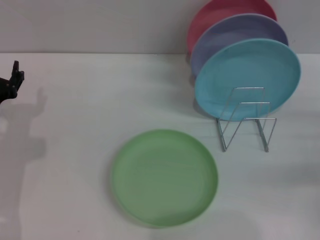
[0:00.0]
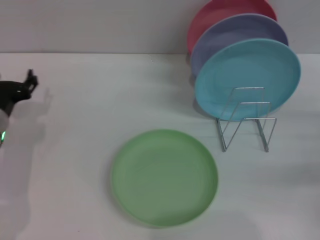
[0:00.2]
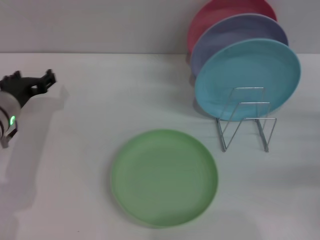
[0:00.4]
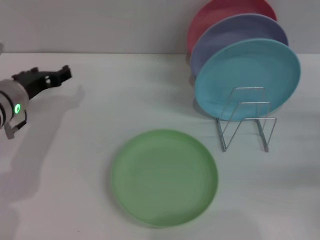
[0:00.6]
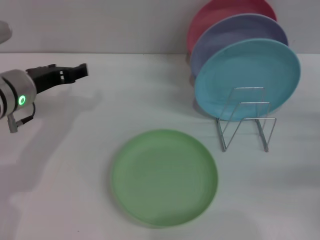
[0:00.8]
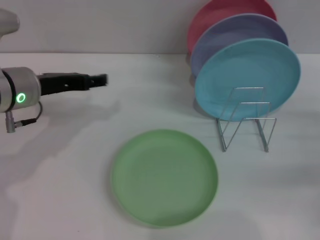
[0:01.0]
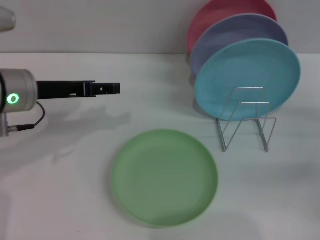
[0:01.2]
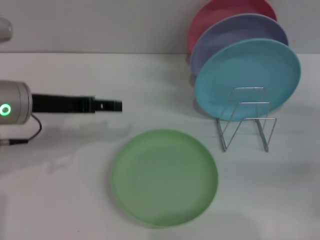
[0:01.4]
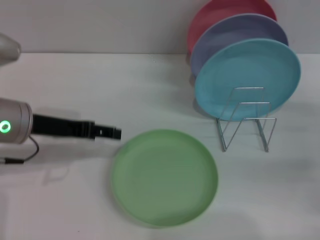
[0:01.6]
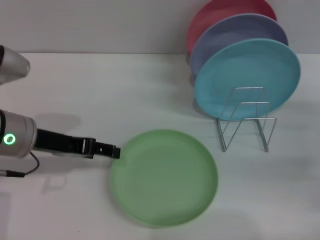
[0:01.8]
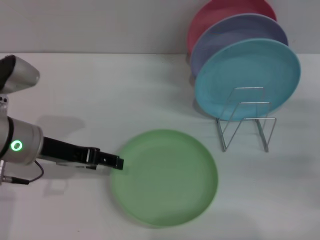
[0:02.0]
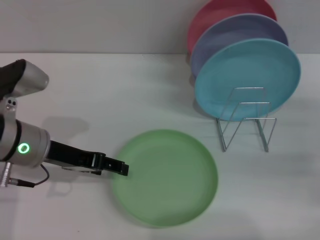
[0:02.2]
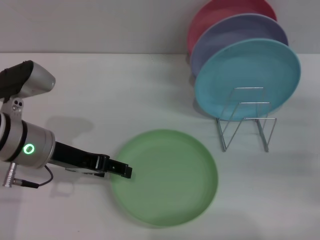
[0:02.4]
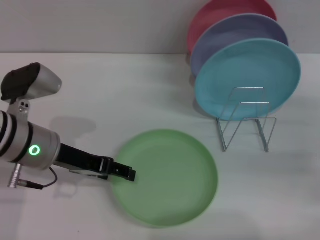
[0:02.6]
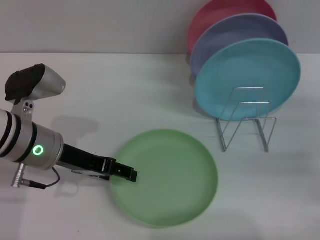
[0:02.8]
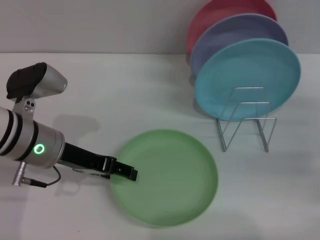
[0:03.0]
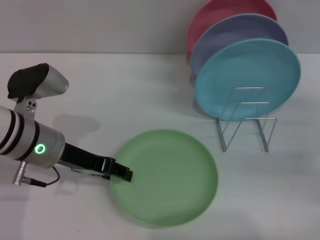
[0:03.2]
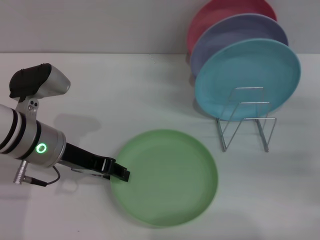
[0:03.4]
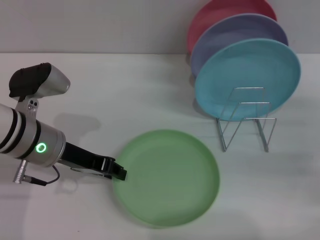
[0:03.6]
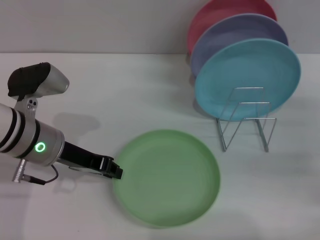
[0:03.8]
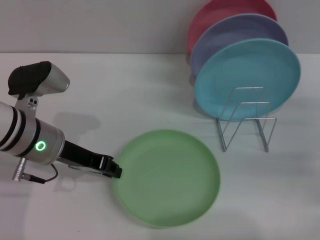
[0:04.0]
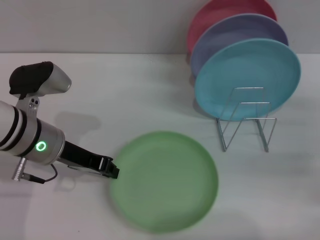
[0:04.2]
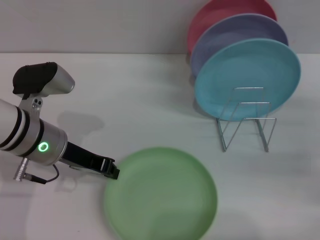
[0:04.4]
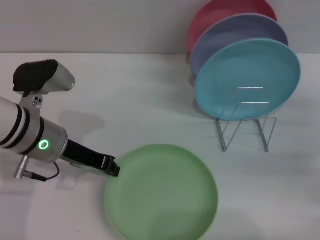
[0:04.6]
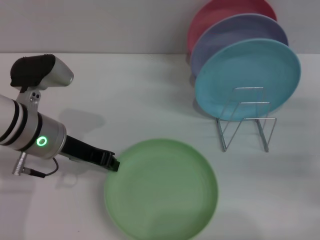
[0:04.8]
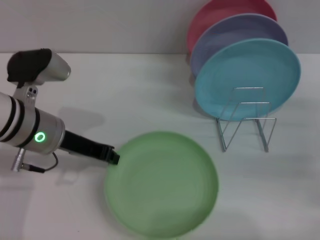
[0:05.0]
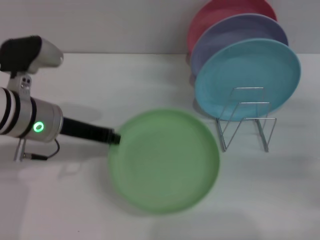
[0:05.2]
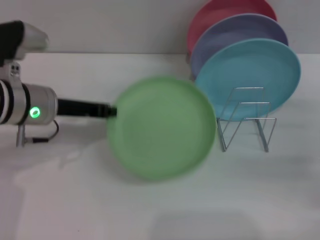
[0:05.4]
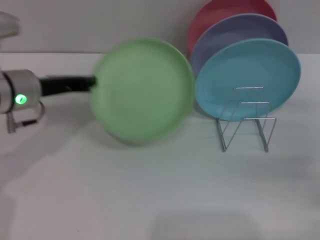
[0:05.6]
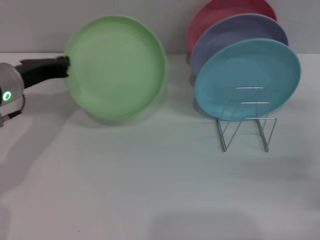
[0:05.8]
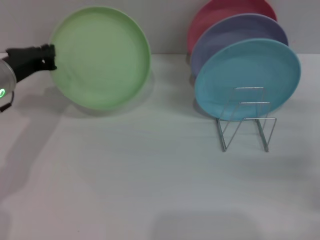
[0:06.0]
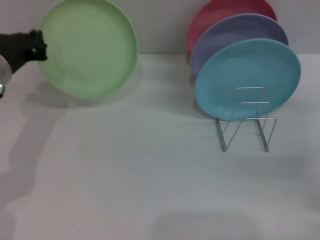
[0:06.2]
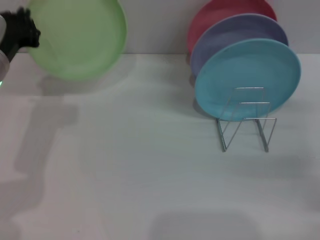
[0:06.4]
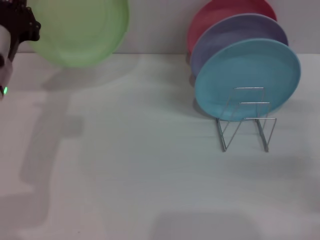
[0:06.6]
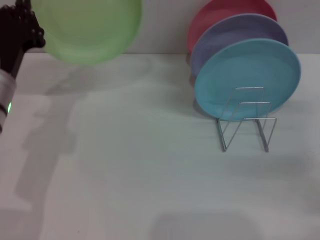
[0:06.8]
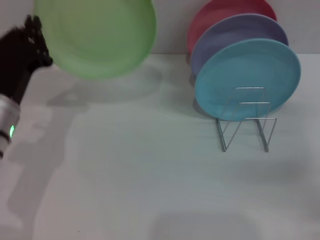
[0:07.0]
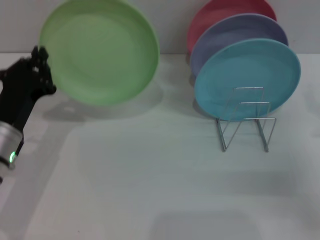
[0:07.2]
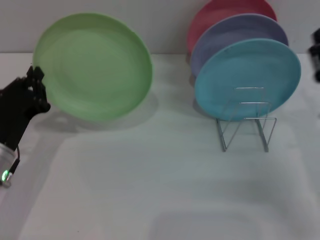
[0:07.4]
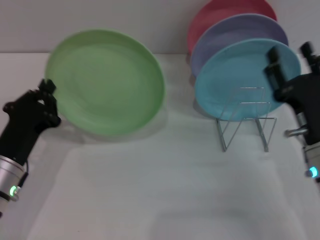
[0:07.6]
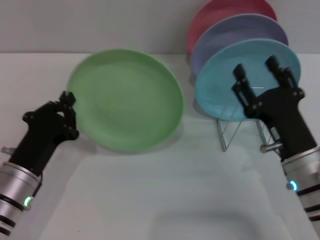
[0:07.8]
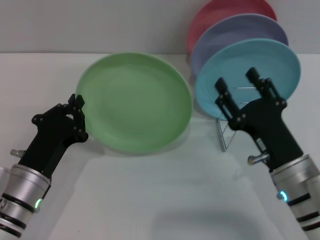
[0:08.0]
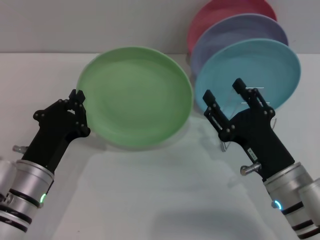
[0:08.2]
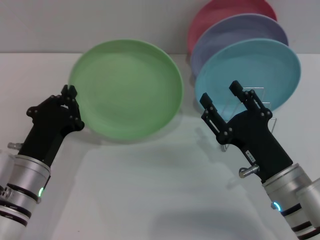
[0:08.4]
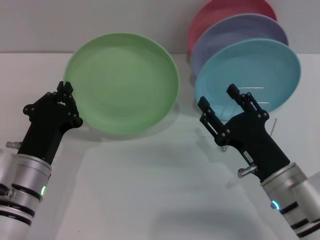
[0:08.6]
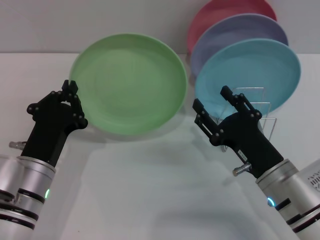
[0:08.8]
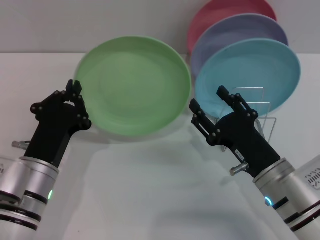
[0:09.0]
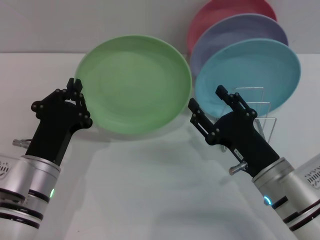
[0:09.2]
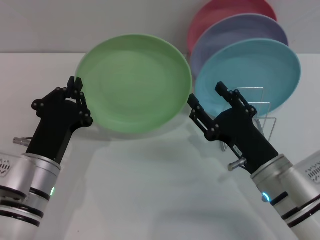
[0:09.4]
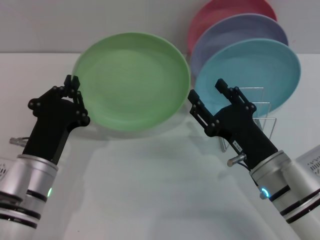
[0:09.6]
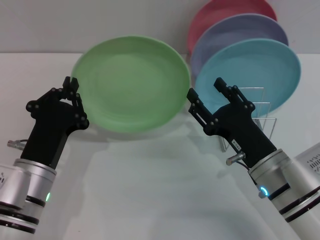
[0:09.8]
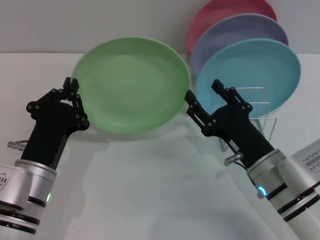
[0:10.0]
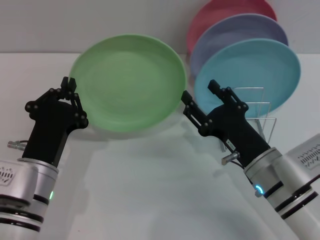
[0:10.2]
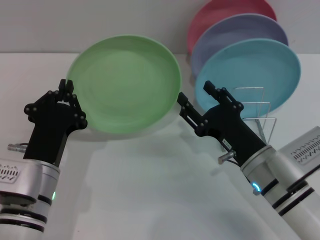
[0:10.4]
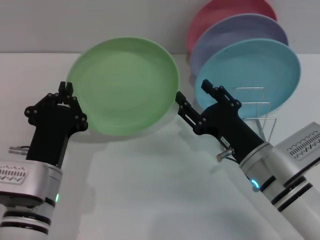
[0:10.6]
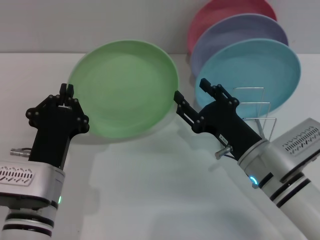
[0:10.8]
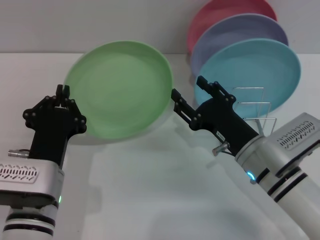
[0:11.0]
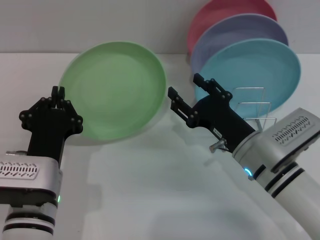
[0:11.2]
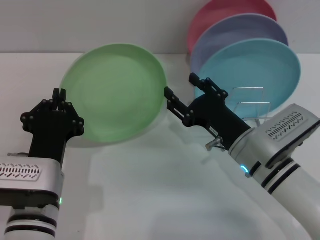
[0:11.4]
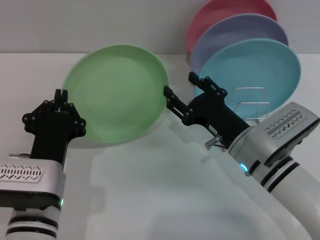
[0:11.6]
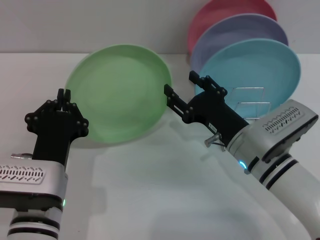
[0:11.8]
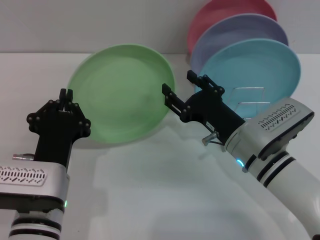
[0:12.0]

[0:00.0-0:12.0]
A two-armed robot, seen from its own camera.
Task of the whole recording: Grip the plate with one hand, pass it to the other, then set it on the shelf.
Step, 0:00.0 to 0:06.8: Pick up the plate with the left gripper.
0:00.0 to 0:01.6: The left gripper moves upward, some 10 cm.
0:01.6 to 0:03.0: The grippers stay close to where they were, moving slightly.
0:03.0 to 0:04.4: The left gripper closes.
0:04.4 to 0:06.0: The left gripper is displaced to the left by approximately 5 cm.
0:06.0 to 0:07.6: The right gripper heads to the left, covering approximately 15 cm, while the left gripper is displaced backward and downward by some 15 cm.
0:07.6 to 0:09.0: The left gripper is displaced to the right by roughly 5 cm. The right gripper shifts approximately 5 cm to the left.
0:09.0 to 0:10.4: The grippers make only small movements.

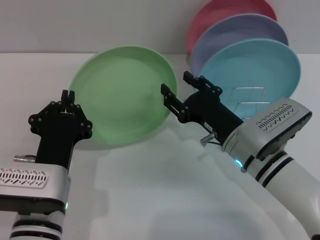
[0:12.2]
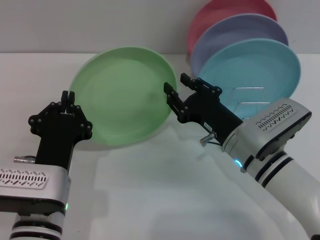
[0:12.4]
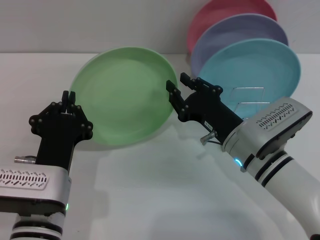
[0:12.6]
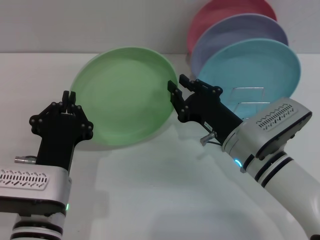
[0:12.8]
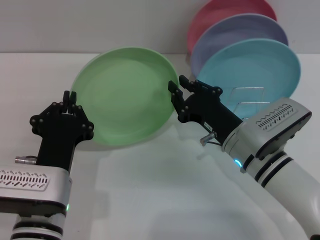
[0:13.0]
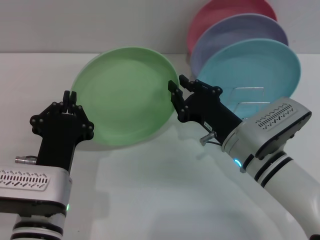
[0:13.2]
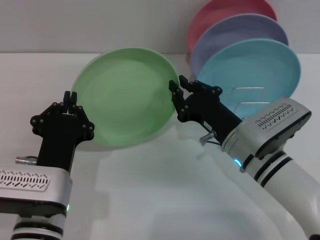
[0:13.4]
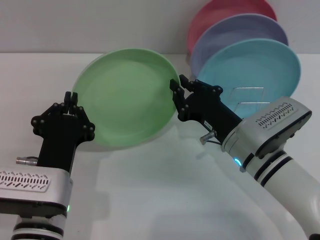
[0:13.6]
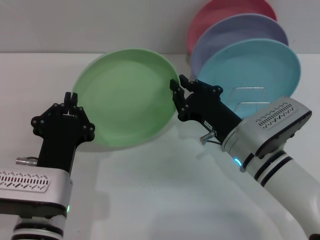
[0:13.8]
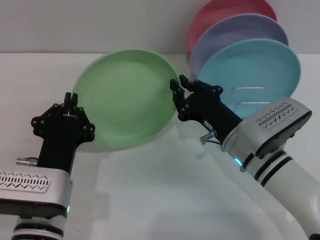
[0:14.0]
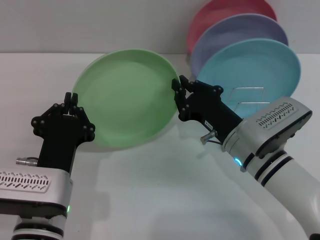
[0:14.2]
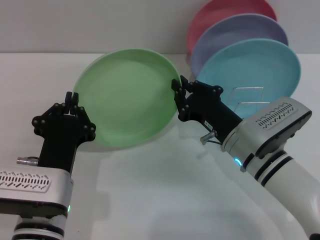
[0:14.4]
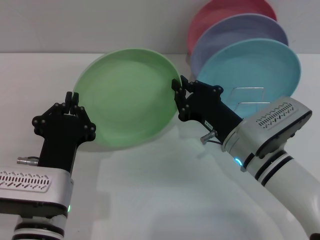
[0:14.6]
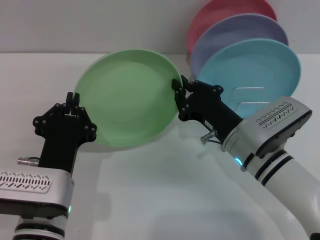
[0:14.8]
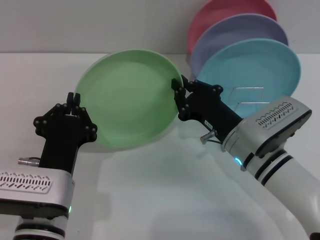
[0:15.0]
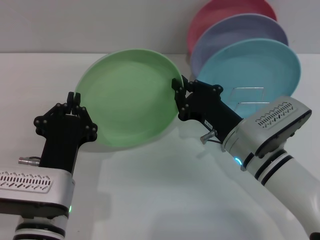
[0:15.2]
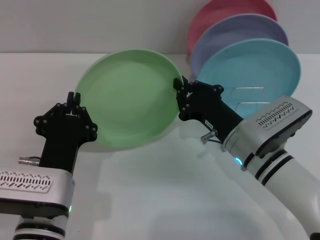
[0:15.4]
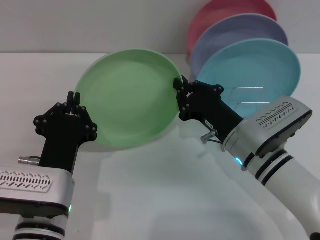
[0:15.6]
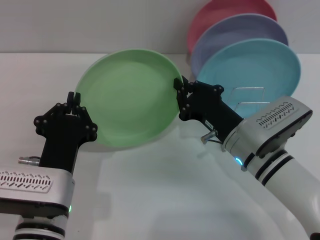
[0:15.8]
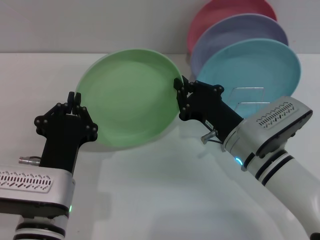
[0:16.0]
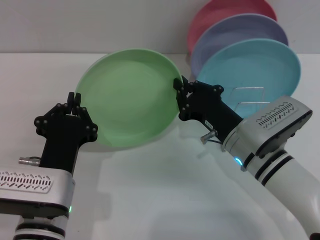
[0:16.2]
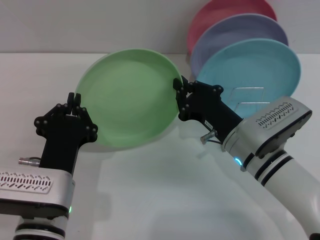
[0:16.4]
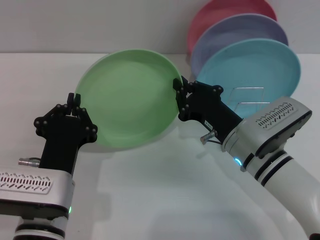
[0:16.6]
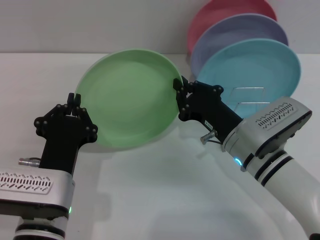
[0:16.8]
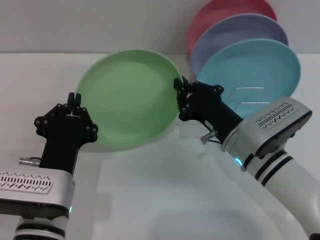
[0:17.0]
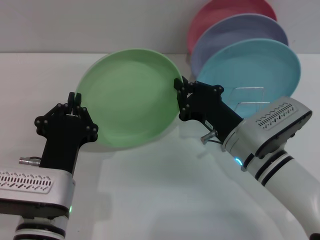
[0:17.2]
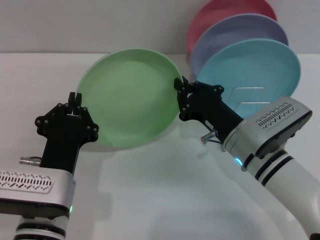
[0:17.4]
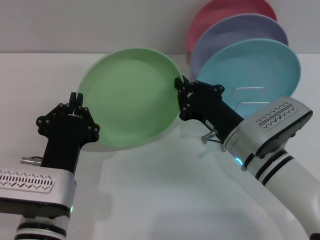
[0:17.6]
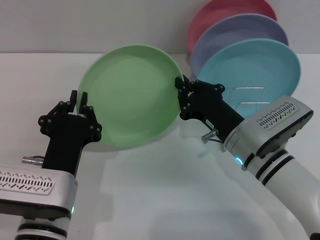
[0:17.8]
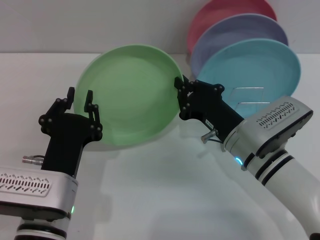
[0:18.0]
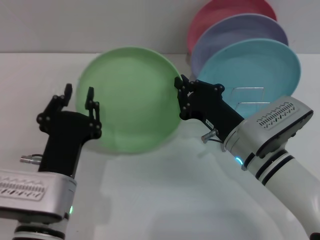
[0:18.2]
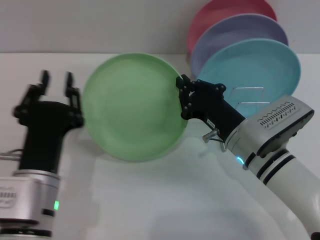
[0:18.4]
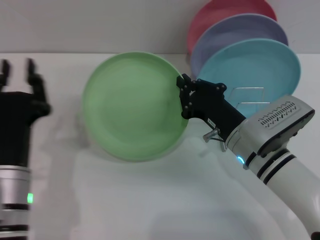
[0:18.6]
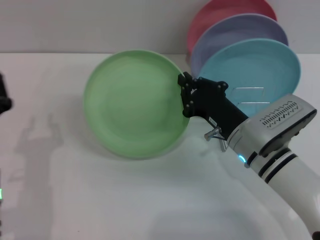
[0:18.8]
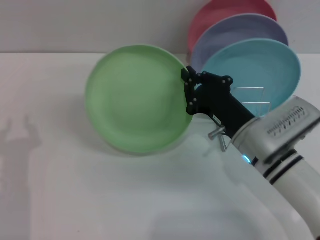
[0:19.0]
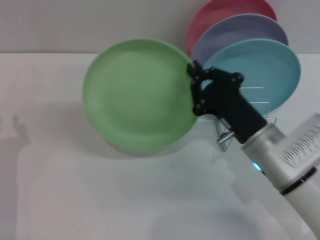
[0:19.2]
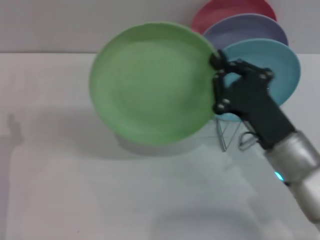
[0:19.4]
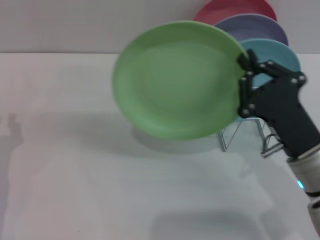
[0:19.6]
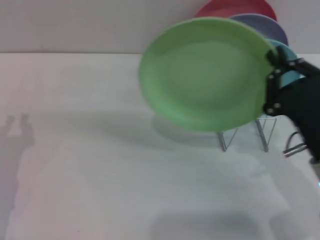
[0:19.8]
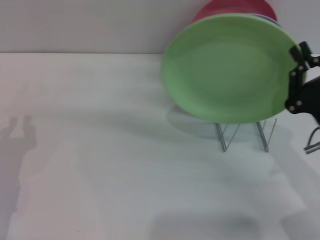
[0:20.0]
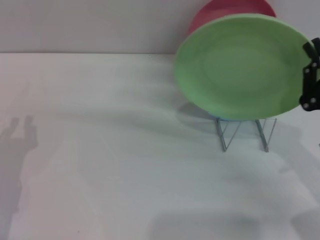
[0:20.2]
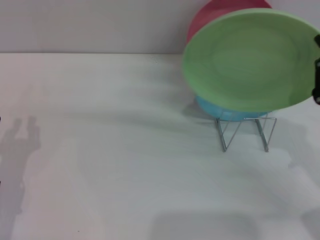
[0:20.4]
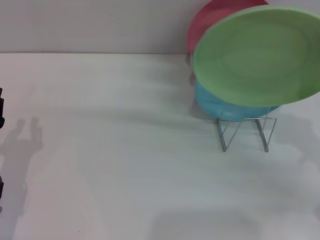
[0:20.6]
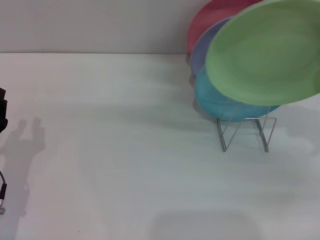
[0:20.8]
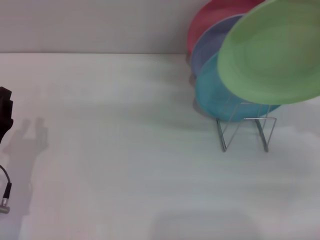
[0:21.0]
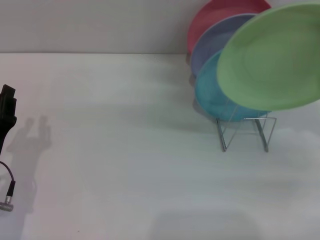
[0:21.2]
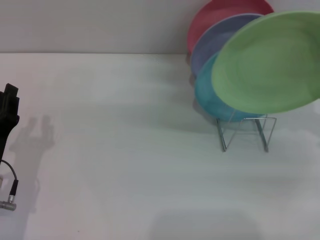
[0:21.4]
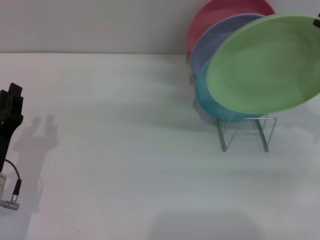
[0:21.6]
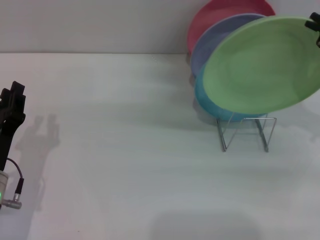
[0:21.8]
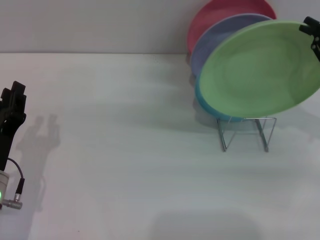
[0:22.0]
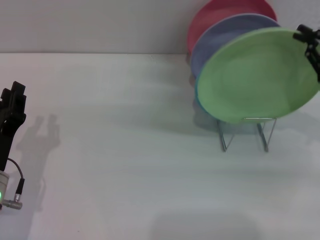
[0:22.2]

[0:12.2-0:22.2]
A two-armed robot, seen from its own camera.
Task of the whole recording: Grip the plate with one hand, pass it to the other, then set it on the shelf.
Step, 0:12.2 to 0:19.2: Pass the plate from the left gripper to the right gripper.
0:12.2 to 0:13.6: The right gripper closes up.
0:13.6 to 0:18.0: Both grippers stay about where they are.
0:18.0 to 0:19.4: The left gripper heads to the left, covering about 15 cm; the right gripper changes place by roughly 5 cm.
0:19.4 to 0:20.8: The right gripper moves to the right, roughly 15 cm.
